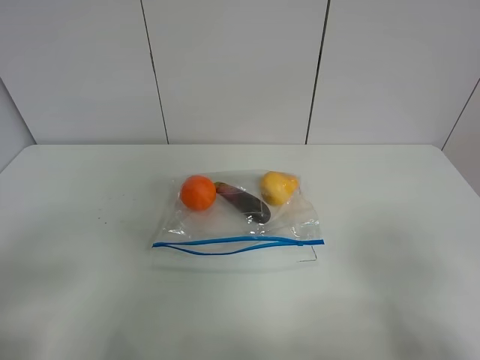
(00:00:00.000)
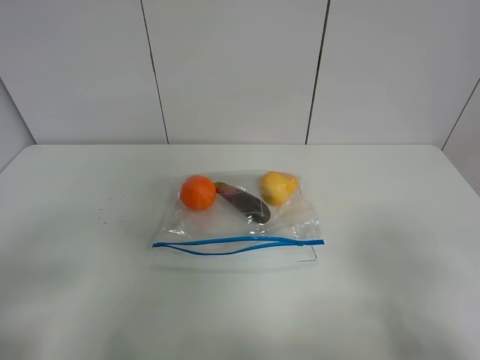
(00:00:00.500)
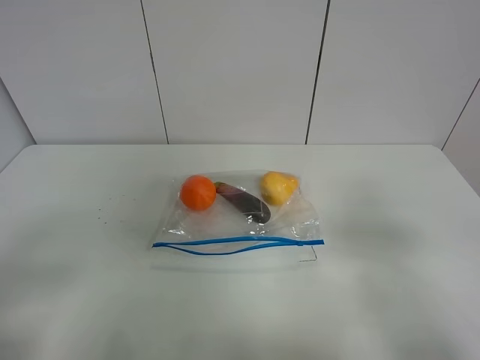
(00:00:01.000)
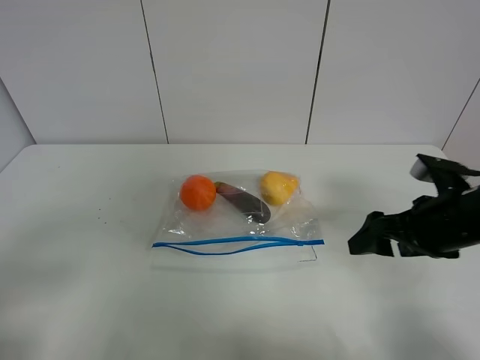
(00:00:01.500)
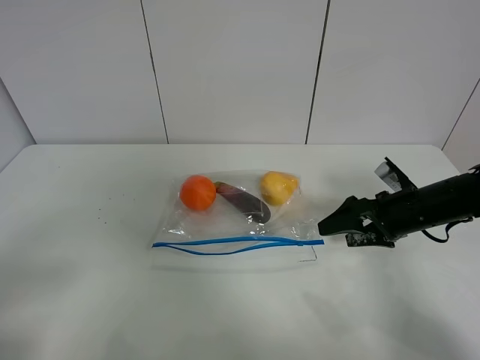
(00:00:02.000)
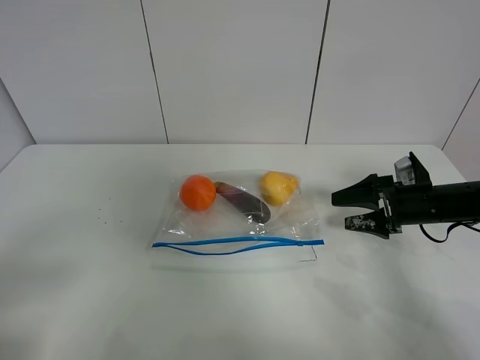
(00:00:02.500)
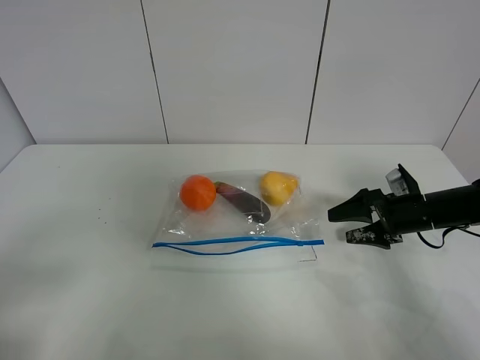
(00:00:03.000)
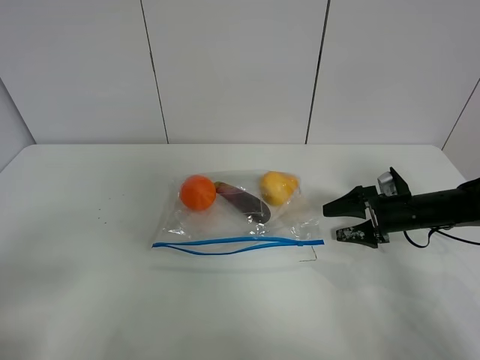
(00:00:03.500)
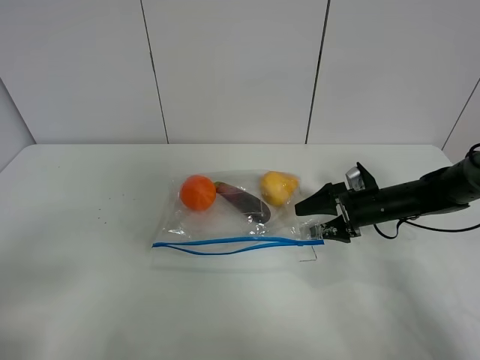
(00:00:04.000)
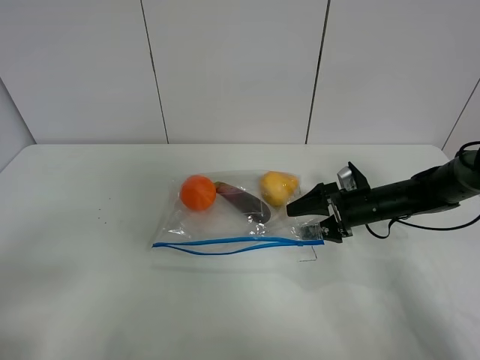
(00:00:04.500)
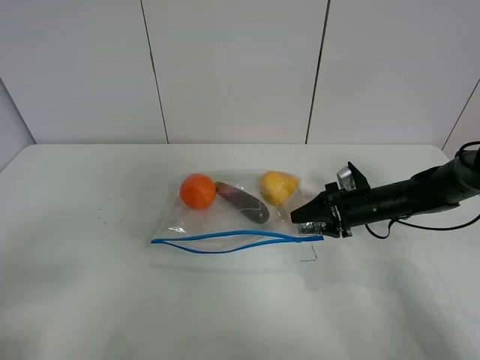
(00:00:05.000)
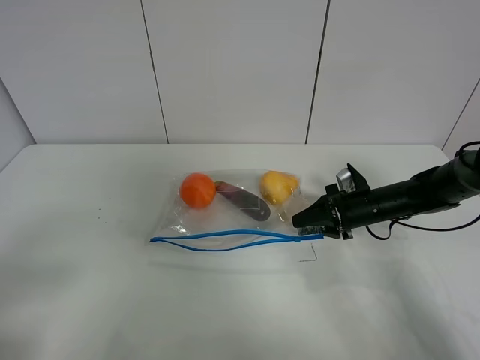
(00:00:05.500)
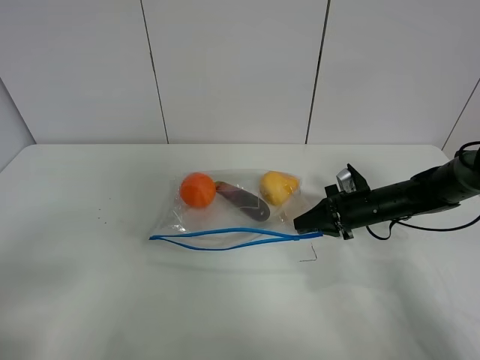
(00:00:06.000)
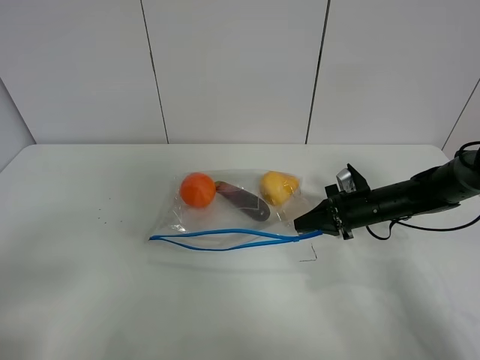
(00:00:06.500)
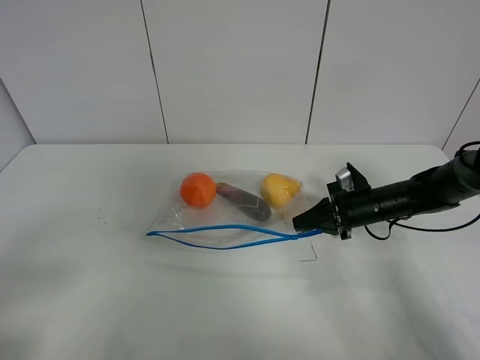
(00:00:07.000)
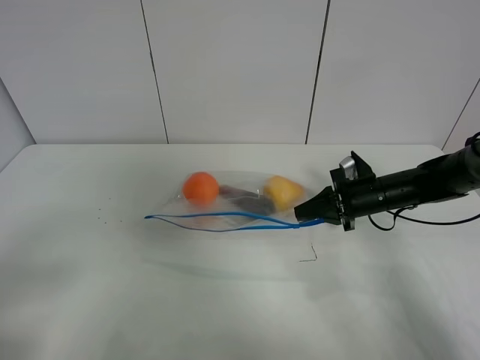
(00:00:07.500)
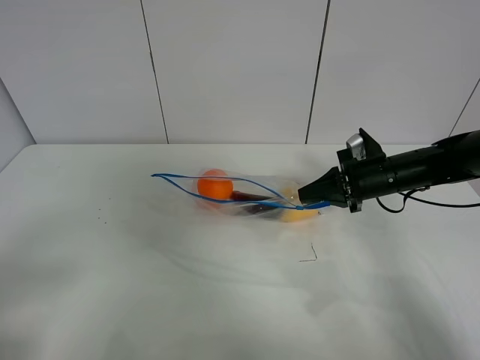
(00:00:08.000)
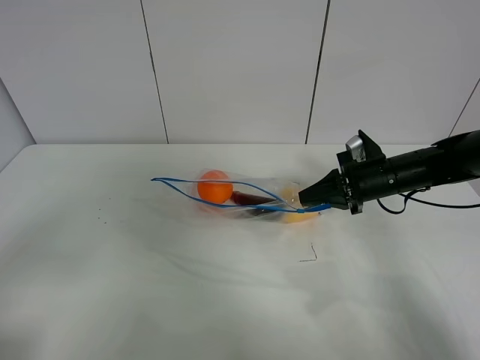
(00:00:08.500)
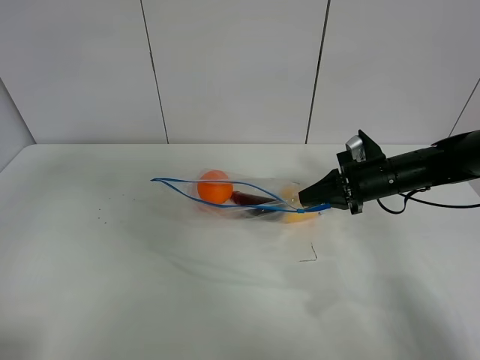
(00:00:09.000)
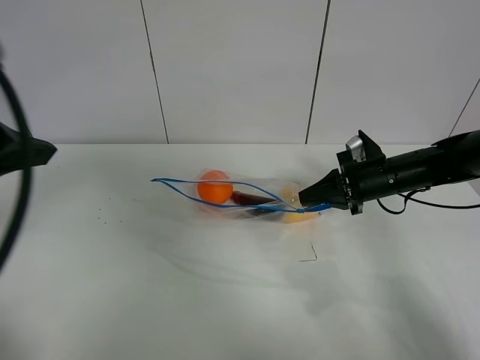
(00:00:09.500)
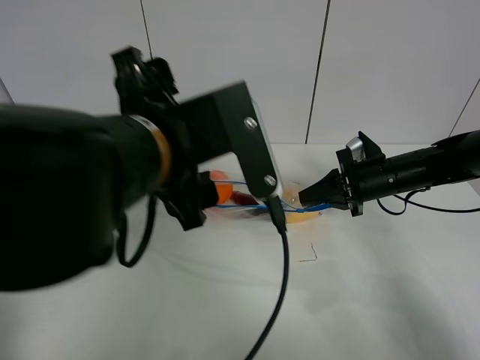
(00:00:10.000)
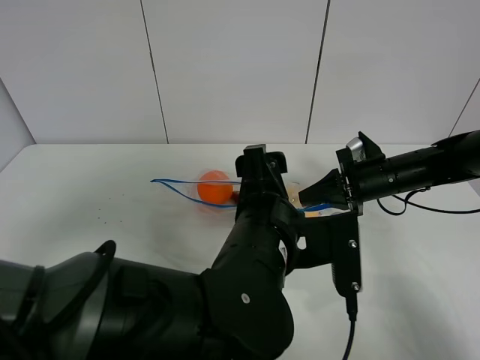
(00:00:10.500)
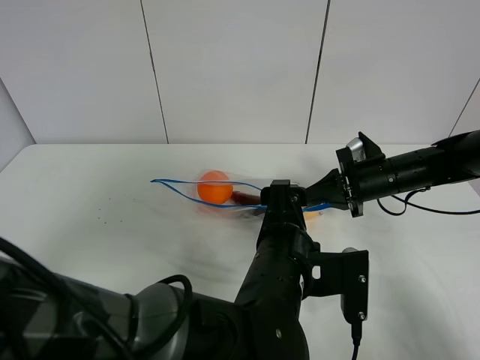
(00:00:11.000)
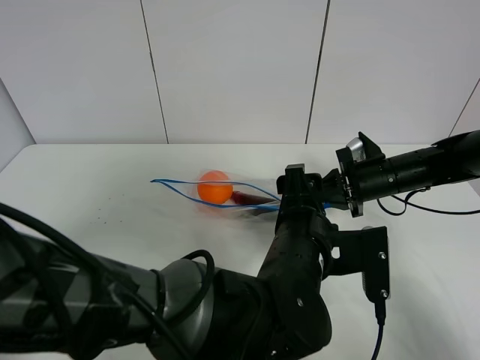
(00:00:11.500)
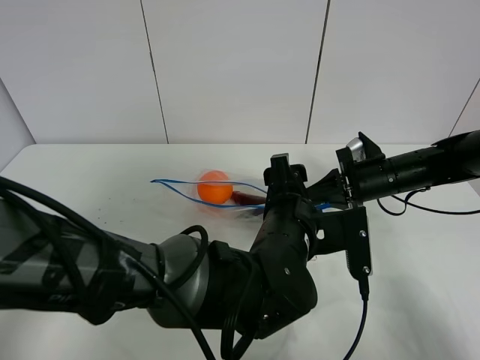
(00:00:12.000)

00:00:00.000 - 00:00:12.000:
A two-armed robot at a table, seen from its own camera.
Step, 00:00:00.000 - 00:00:06.000: Grasp the fruit bag with right gripper.
Step, 00:00:06.500 - 00:00:08.000: Lift the fruit bag with your right gripper.
00:00:00.000 - 00:00:02.000: The right gripper goes roughly 35 cm forward and downward.
00:00:02.000 - 00:00:04.000: The right gripper travels forward and downward by some 10 cm.
00:00:04.000 - 00:00:06.000: The right gripper closes its fingers.
00:00:06.000 - 00:00:08.000: The right gripper travels upward by about 5 cm.
00:00:08.000 - 00:00:10.000: The left gripper is displaced to the right and forward by some 30 cm.
00:00:10.000 - 00:00:12.000: The left gripper heads downward and to the right, covering roughly 15 cm.

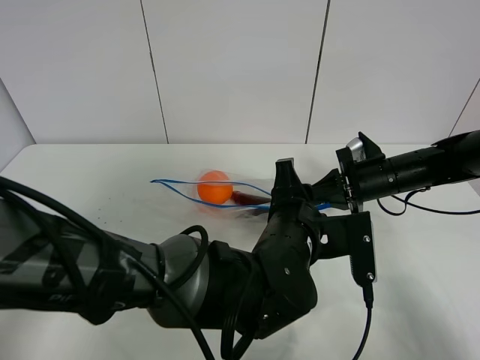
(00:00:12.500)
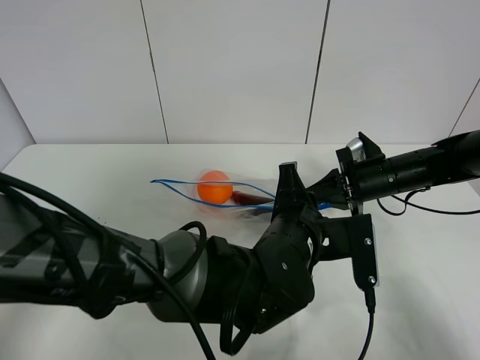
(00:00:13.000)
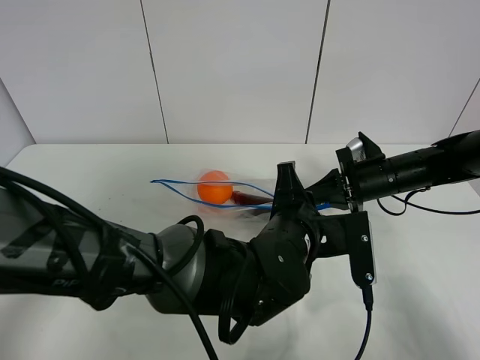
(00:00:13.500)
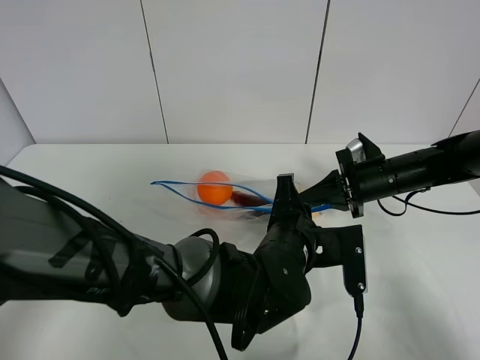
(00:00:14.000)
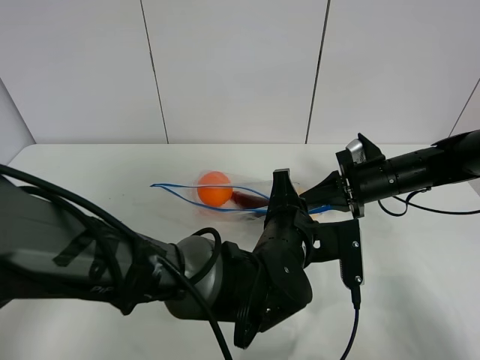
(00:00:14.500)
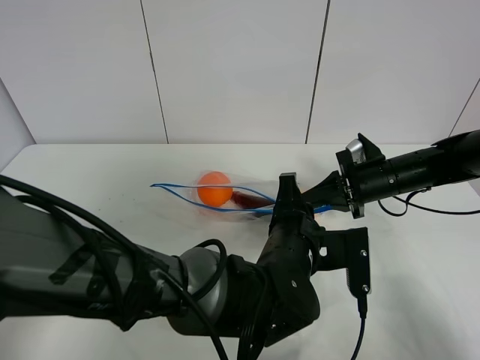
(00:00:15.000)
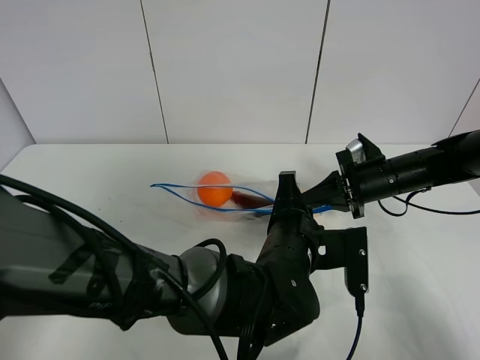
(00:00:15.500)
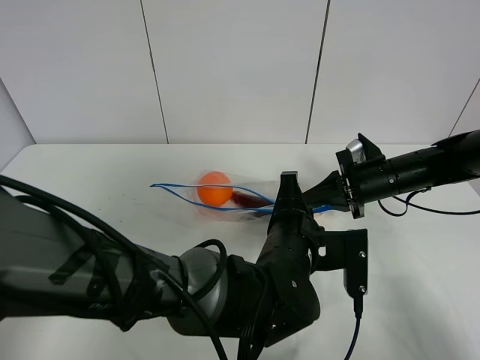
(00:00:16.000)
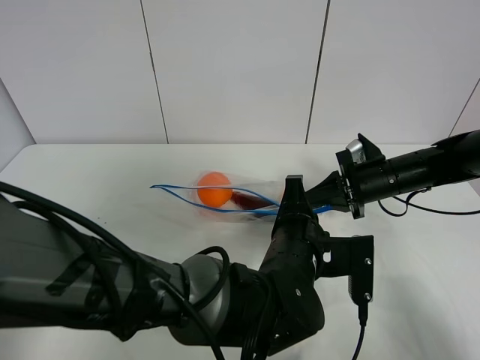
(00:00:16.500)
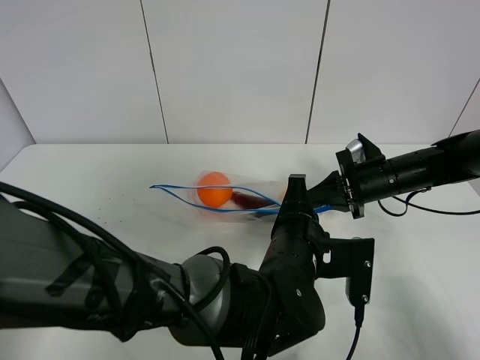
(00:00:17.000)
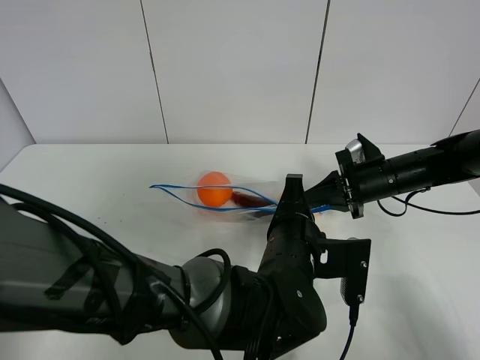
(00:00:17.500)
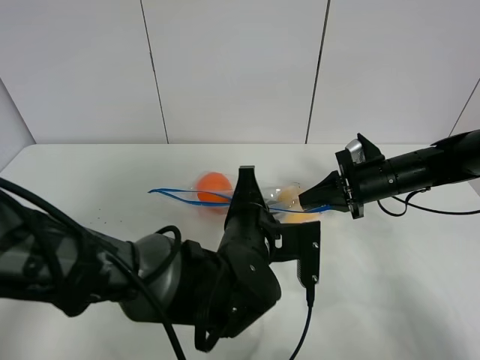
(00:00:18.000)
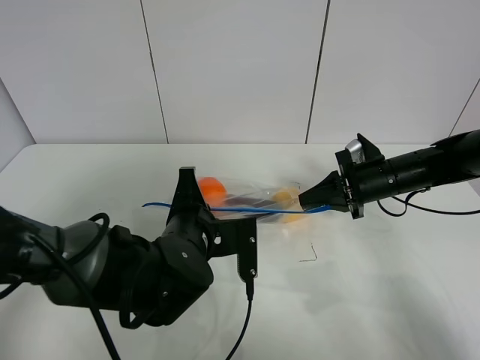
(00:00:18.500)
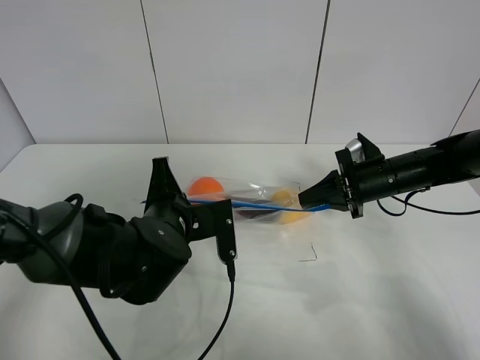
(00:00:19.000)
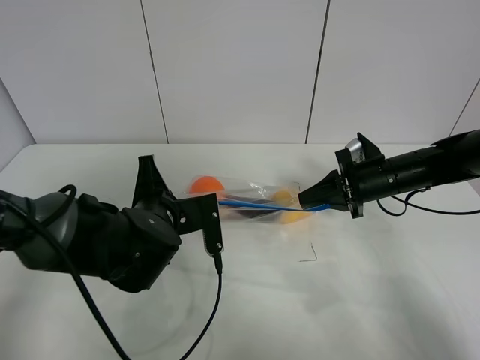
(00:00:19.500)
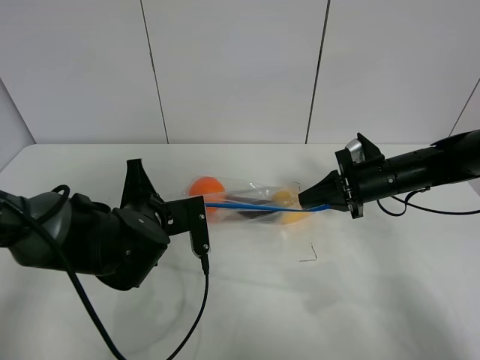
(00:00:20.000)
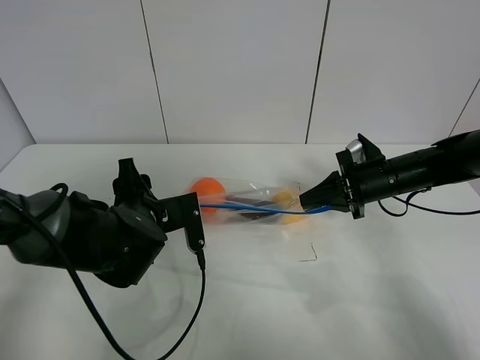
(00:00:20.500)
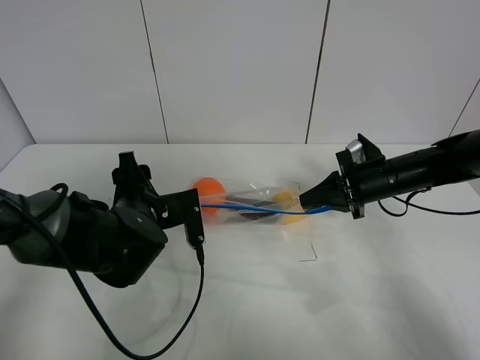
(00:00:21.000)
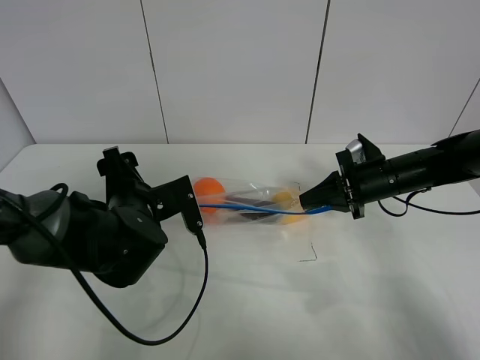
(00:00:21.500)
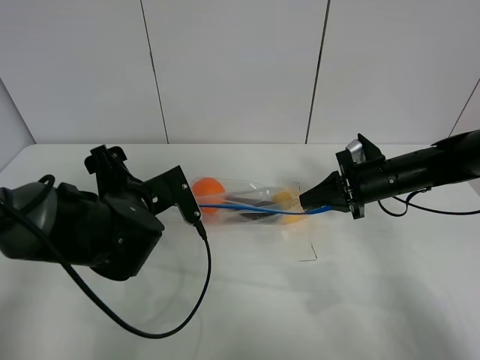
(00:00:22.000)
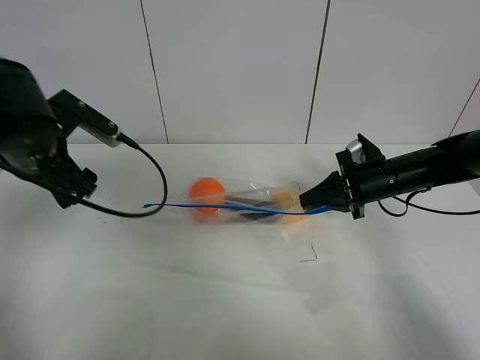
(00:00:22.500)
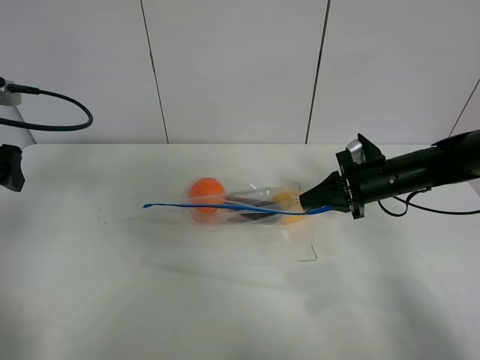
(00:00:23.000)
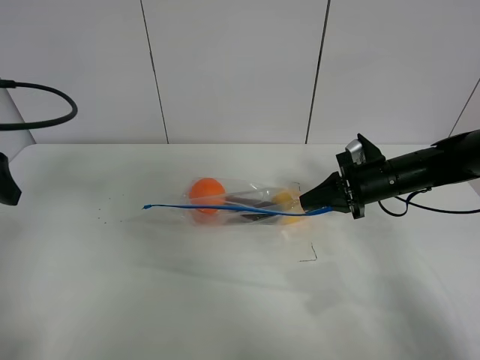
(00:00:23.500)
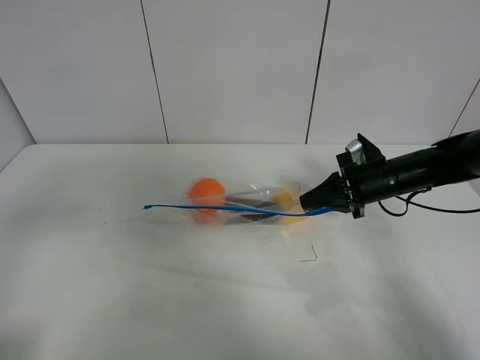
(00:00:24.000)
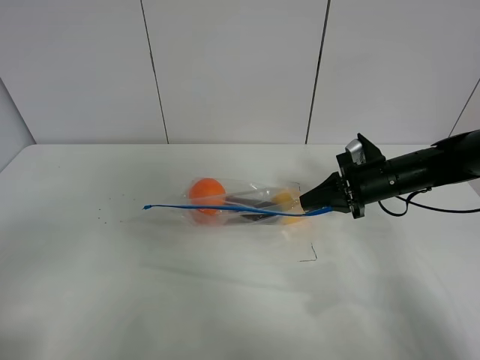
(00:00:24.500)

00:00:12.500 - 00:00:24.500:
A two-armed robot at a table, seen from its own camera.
Step, 00:00:12.500 - 00:00:20.000: Pull the fruit bag with left gripper.
00:00:12.500 - 00:00:16.500: The grippers stay close to where they were, moving slightly.
00:00:16.500 - 00:00:18.500: The left gripper heads to the left, covering about 15 cm.
00:00:18.500 - 00:00:20.500: The left gripper is displaced to the left by roughly 5 cm, and opens up.
00:00:20.500 - 00:00:22.500: The left gripper moves upward and to the left, some 15 cm, and opens up.
00:00:22.500 - 00:00:24.500: The left gripper goes roughly 30 cm backward.

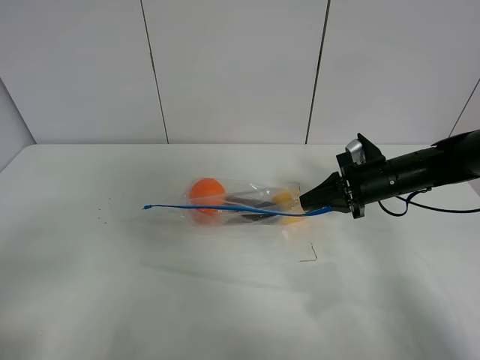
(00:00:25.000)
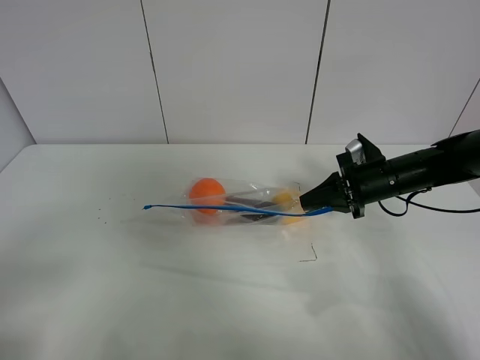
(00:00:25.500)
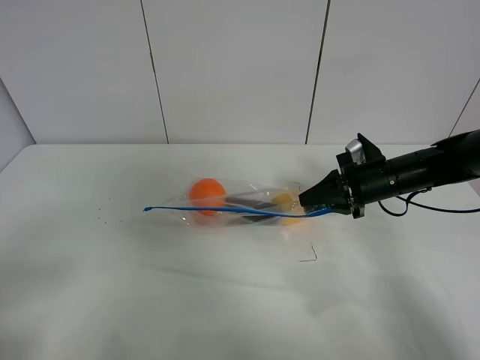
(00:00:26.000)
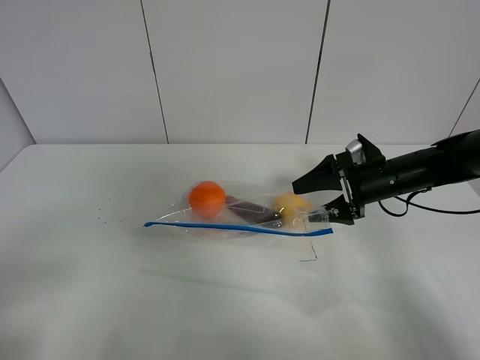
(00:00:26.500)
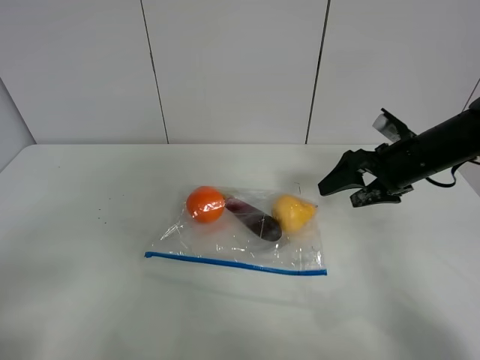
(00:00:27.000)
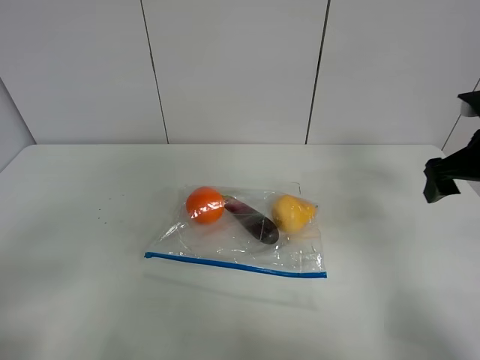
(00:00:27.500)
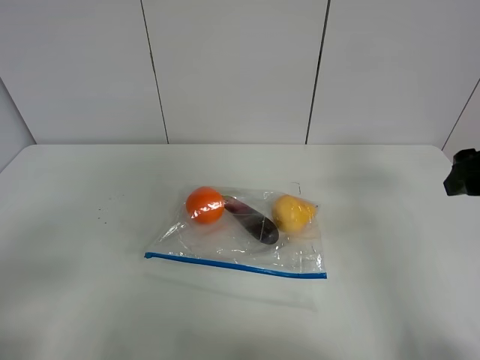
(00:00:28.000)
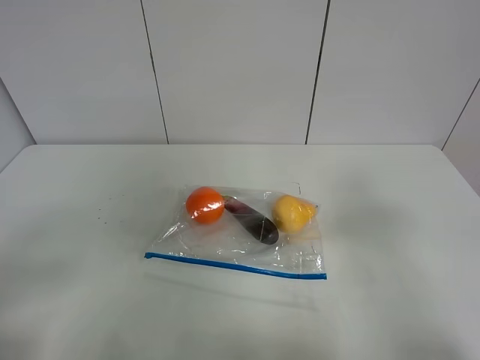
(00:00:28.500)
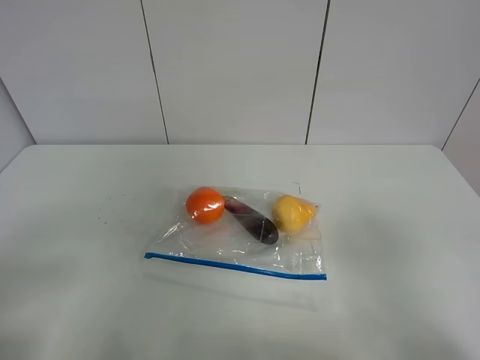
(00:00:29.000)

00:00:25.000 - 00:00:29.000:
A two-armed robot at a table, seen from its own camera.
Step, 00:00:25.000 - 00:00:27.000: Place the fruit bag with right gripper.
00:00:25.000 - 00:00:27.000: The right gripper travels upward by approximately 5 cm, and opens.
00:00:27.000 - 00:00:29.000: The right gripper travels backward by about 35 cm.
